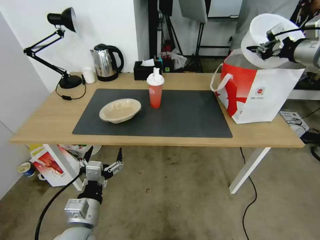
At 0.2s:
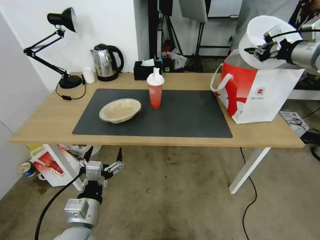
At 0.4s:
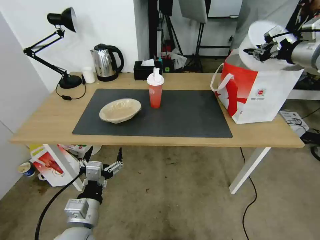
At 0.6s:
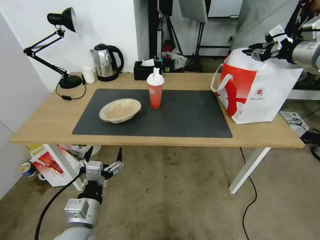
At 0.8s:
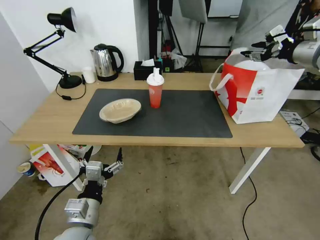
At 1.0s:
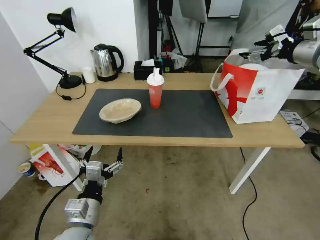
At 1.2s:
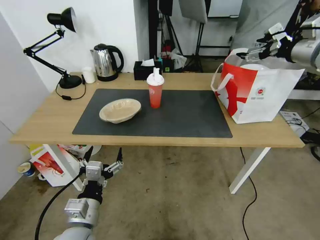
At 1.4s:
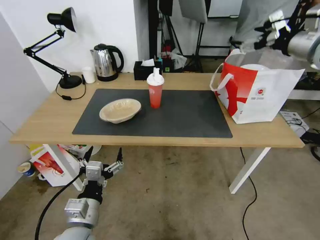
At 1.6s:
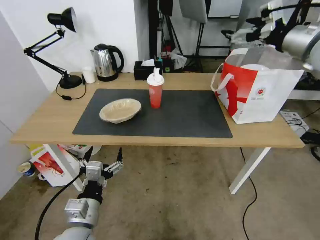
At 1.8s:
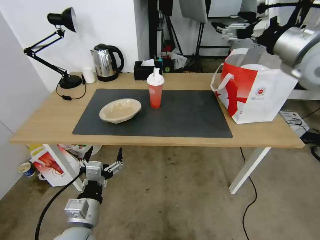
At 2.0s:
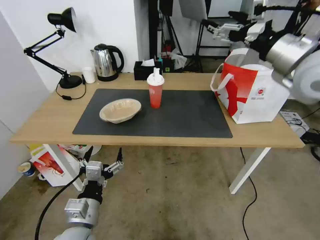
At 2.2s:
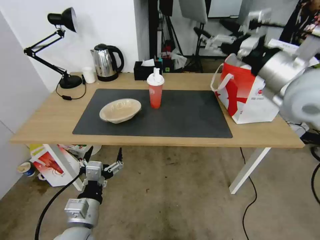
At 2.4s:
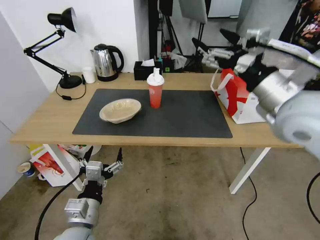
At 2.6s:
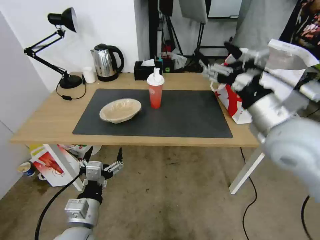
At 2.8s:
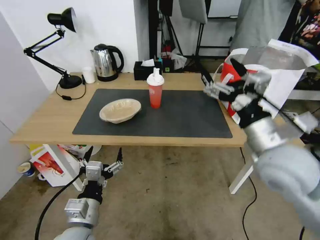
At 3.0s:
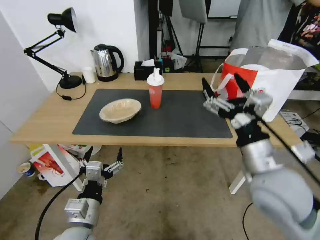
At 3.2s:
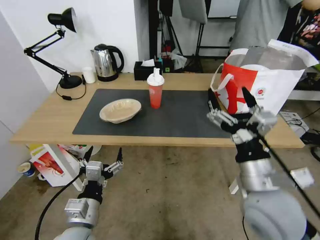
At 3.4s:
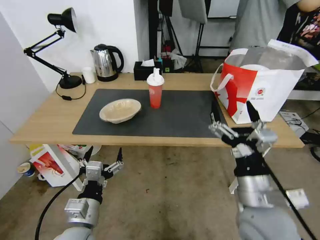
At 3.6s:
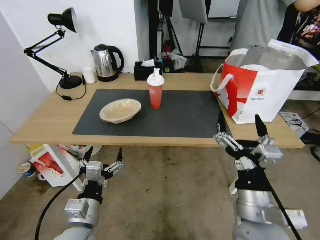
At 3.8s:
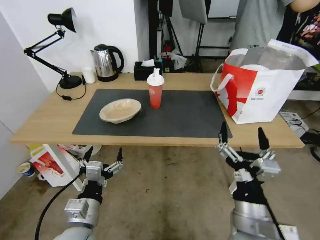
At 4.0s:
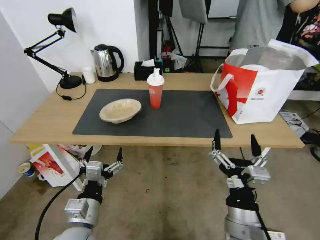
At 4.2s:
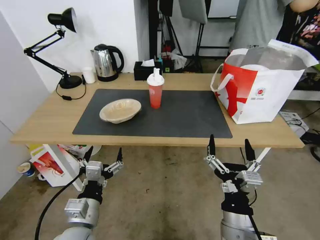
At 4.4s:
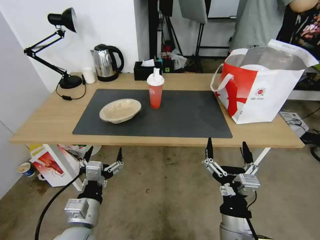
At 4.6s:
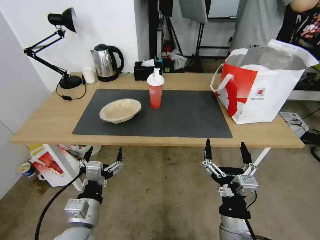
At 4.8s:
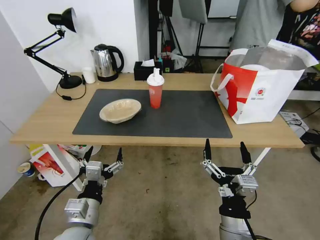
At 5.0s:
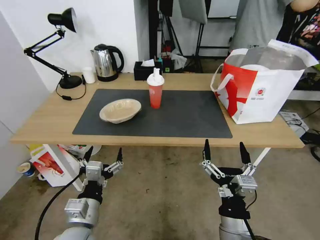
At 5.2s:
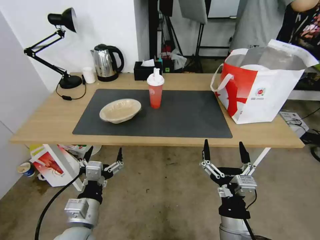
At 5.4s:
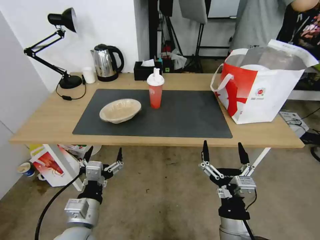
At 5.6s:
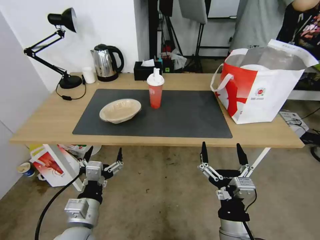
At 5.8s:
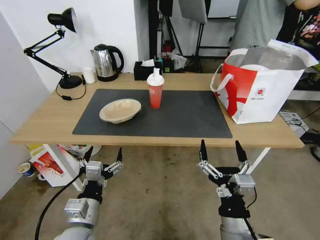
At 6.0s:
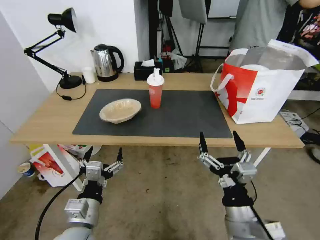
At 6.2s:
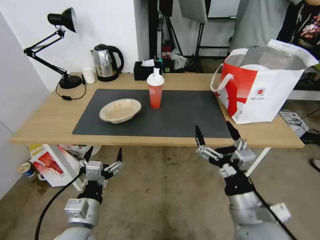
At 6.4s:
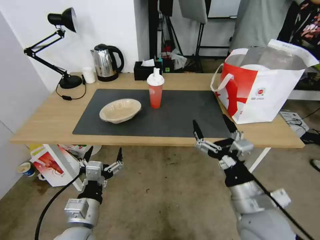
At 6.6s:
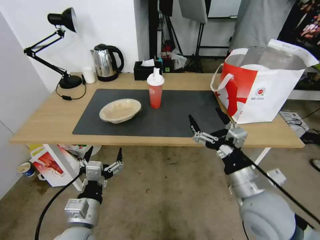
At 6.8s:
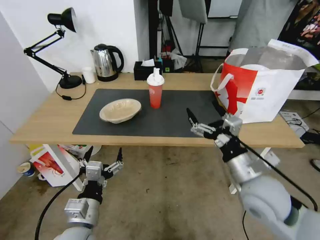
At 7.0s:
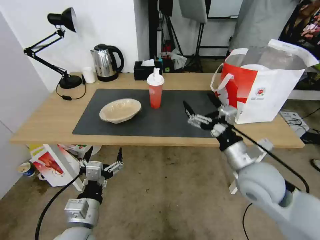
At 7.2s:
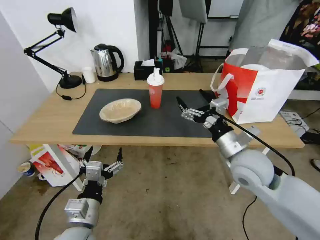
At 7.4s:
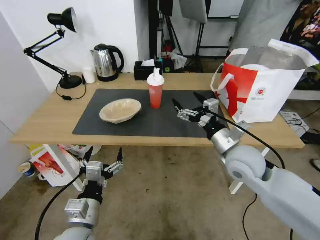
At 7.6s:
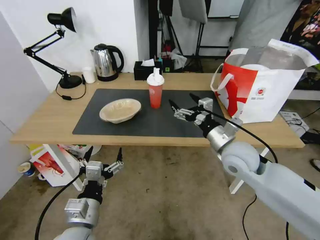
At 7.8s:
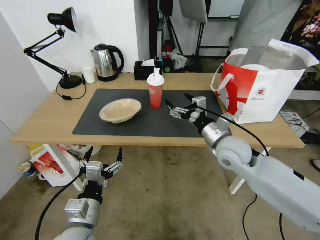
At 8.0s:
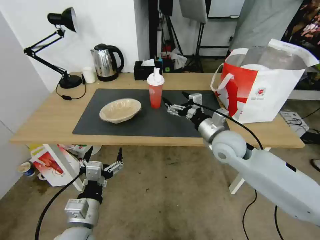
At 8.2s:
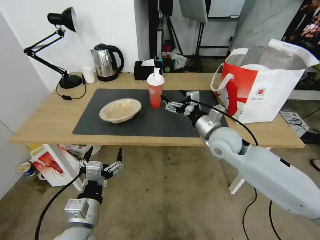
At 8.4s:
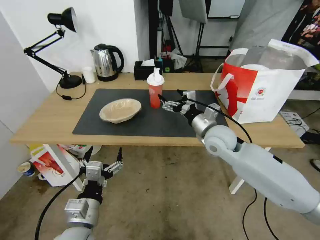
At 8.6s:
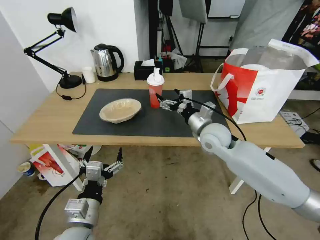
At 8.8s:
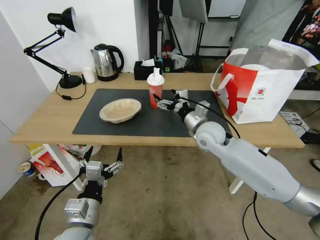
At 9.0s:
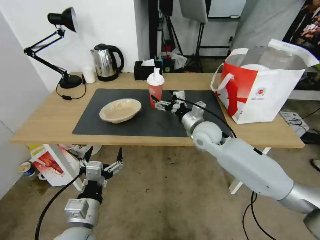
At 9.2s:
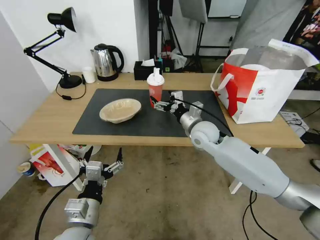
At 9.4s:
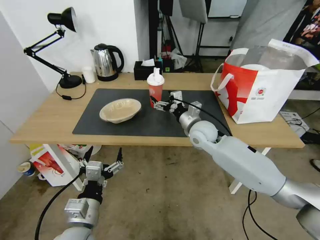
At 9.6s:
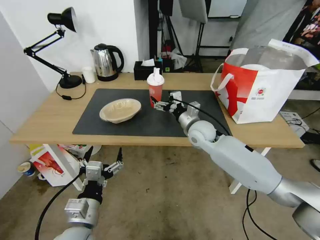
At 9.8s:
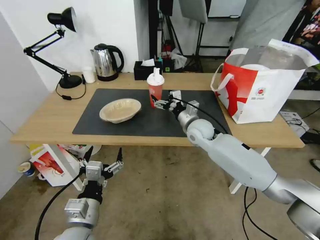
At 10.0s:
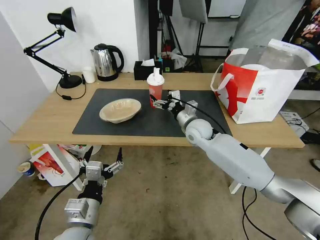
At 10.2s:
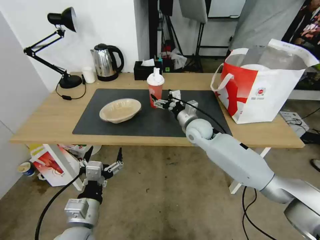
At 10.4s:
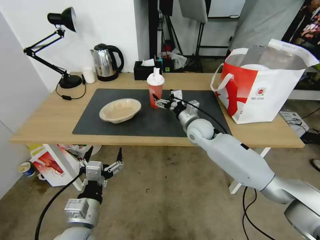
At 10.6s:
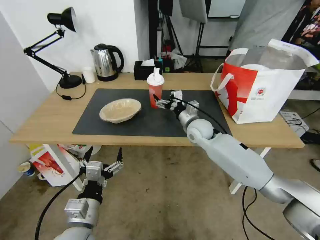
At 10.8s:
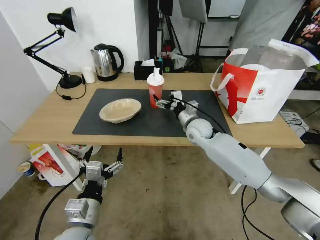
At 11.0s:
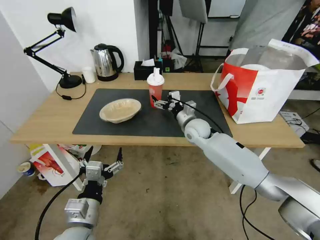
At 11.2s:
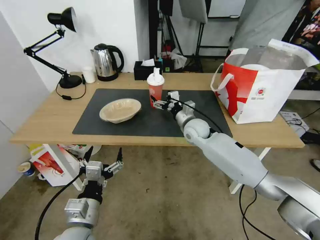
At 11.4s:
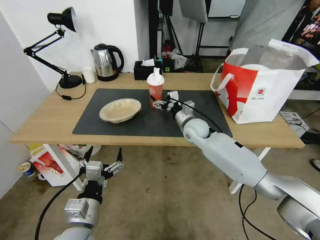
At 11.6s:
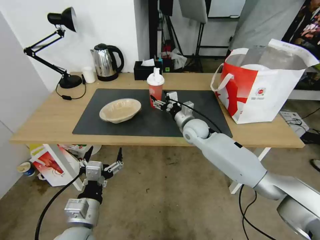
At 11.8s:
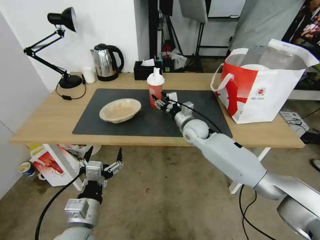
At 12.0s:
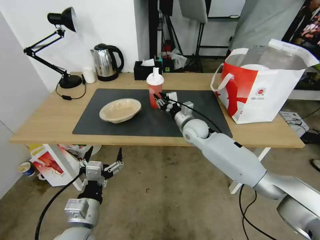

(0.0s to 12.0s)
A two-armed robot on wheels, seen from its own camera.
Task of the whole recording: Pick up the trash from the table and place it into the takeout bag.
0.0s - 1.6s: The right gripper opens.
1.6s - 3.0s: The right gripper shifts roughly 35 cm backward, to the left and downward.
3.0s - 4.4s: The right gripper moves downward, backward and to the left, about 20 cm.
4.4s - 6.0s: There are only small adjustments of the grippers.
6.0s - 7.6s: The right gripper shifts about 20 cm forward.
7.6s - 9.0s: The right gripper heads forward and to the left, covering about 10 cm.
9.0s - 10.4s: The right gripper shifts by some 5 cm.
10.4s - 12.0s: The right gripper closes up.

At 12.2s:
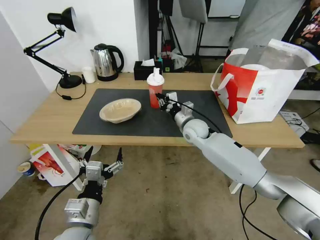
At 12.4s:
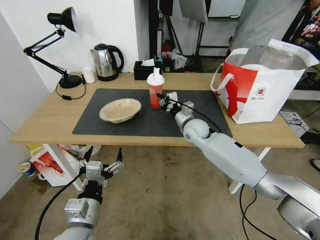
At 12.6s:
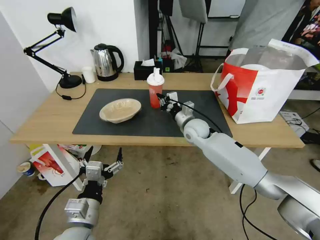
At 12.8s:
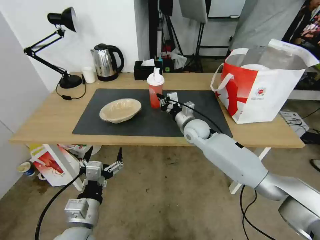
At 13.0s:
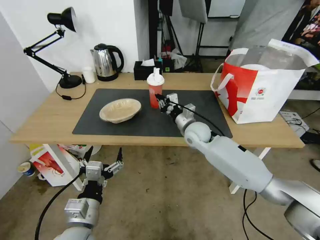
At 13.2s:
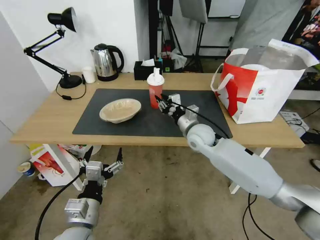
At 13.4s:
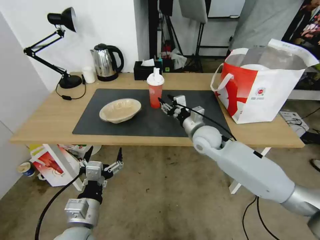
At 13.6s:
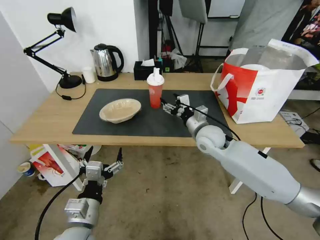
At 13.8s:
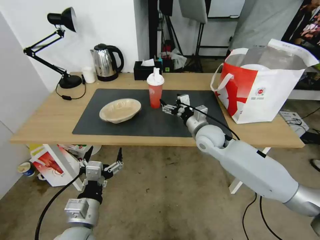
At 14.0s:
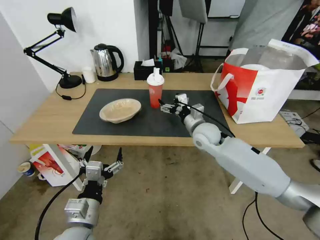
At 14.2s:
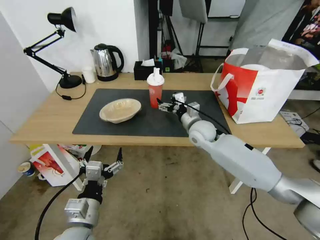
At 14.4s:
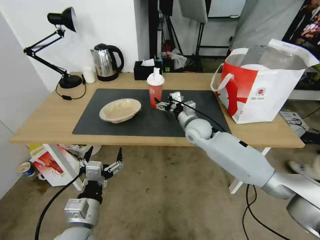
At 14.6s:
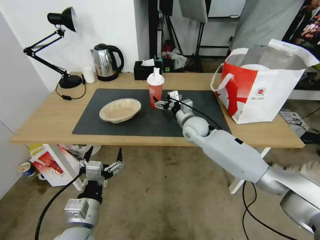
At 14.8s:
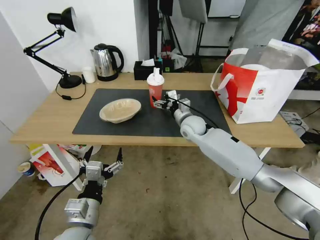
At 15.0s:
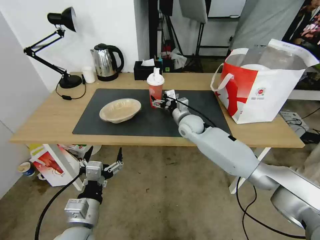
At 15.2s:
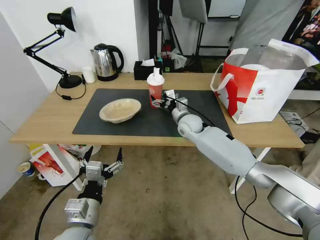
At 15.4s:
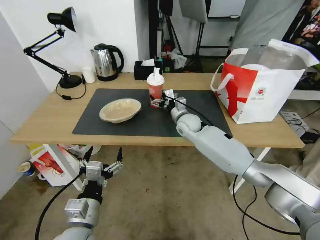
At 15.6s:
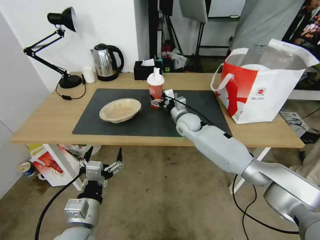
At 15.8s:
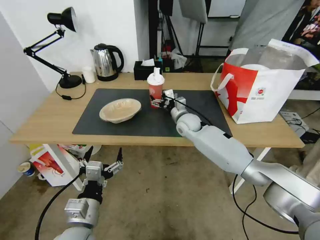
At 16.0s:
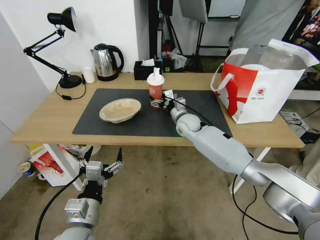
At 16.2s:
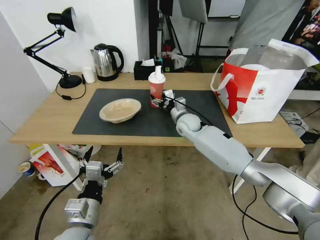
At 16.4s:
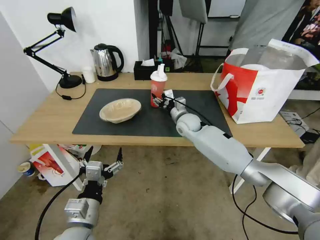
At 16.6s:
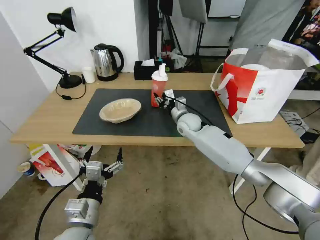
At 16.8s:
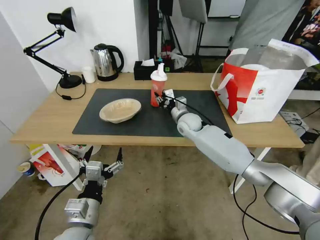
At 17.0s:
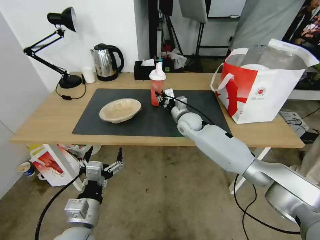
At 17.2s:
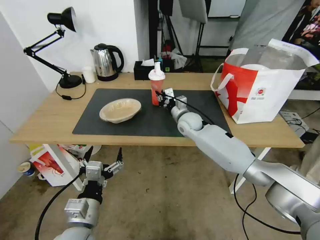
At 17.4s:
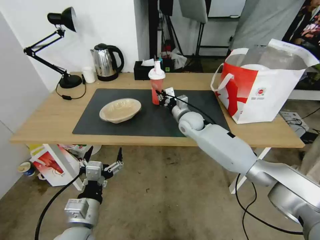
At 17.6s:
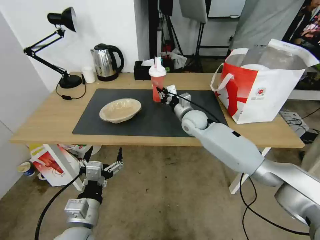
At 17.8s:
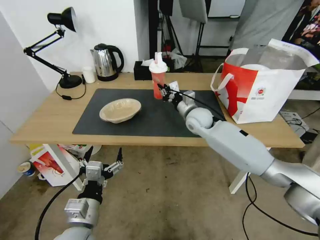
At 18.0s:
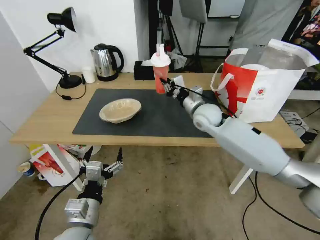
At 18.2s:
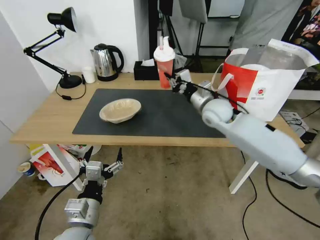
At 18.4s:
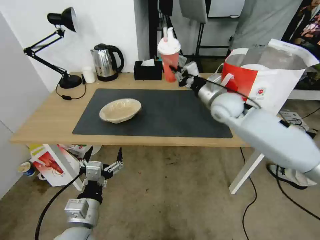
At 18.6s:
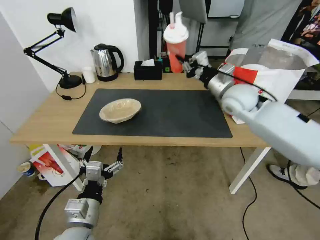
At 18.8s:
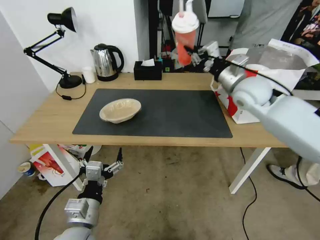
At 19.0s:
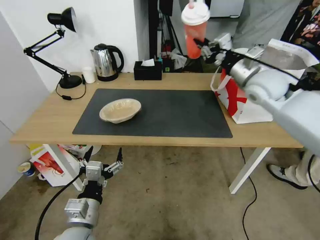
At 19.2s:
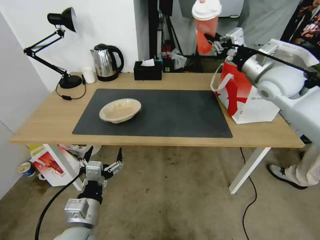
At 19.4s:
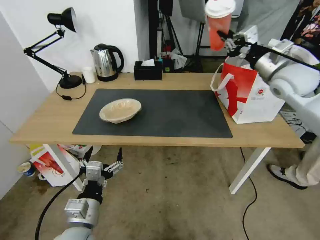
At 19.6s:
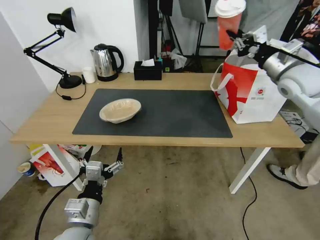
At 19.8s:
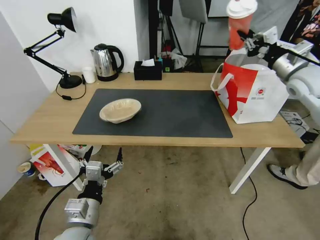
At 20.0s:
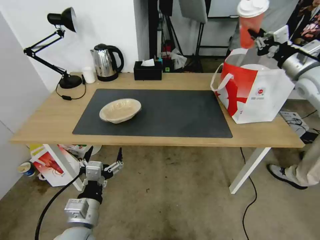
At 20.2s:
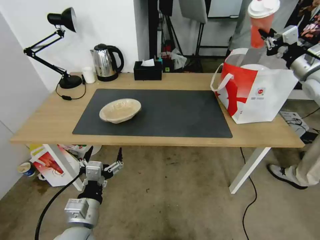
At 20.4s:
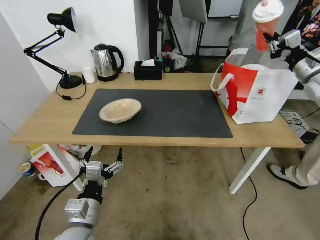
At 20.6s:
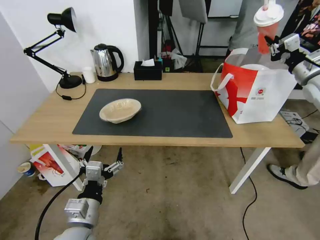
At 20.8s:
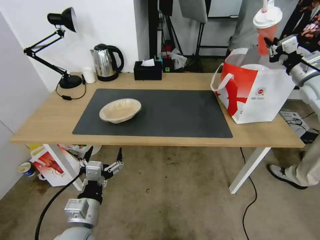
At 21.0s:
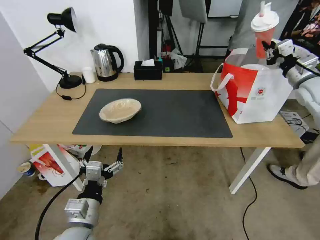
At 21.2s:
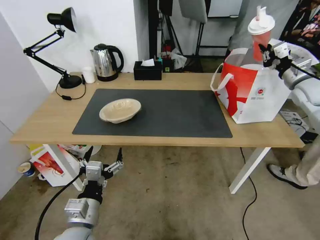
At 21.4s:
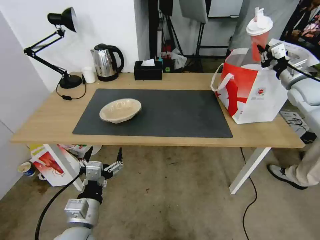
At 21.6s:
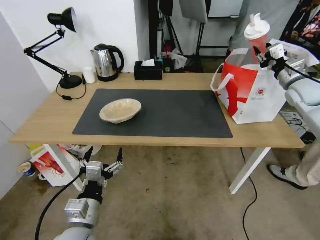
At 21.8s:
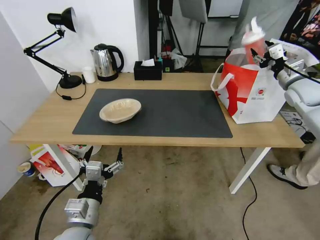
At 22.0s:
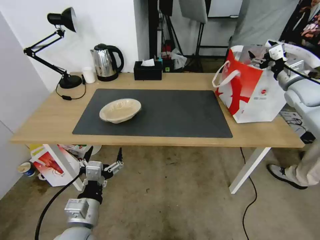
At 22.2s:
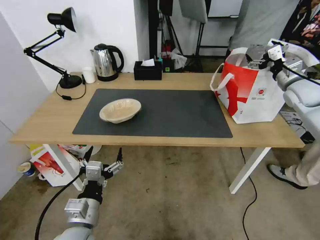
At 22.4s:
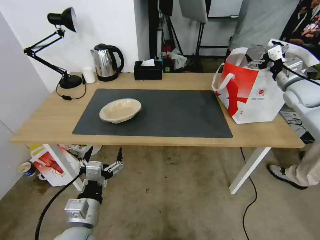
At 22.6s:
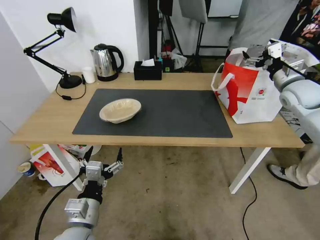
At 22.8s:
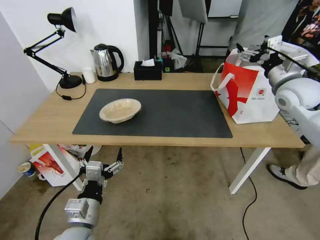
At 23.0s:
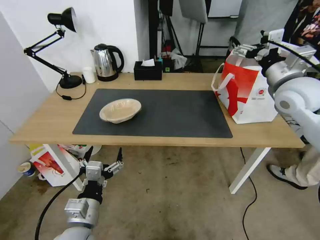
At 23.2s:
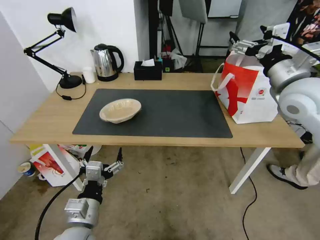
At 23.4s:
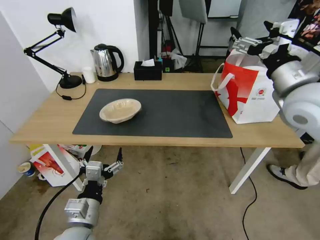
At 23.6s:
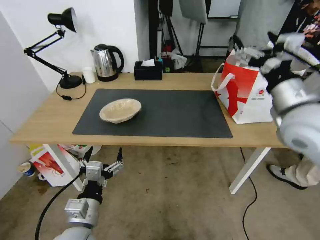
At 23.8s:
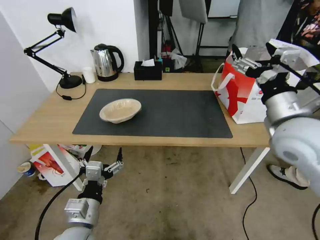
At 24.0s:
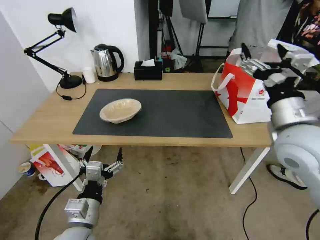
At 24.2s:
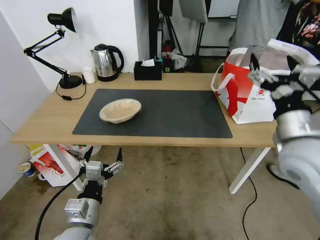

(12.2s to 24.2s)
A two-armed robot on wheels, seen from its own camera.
Task of the whole recording: Pick up the trash from the table and place it into the takeout bag.
12.2s - 13.8s: The right gripper shifts approximately 5 cm backward, and opens its fingers.
13.8s - 15.2s: The right gripper shifts about 10 cm forward and to the left.
15.2s - 16.6s: The right gripper closes.
16.6s - 18.2s: The right gripper travels upward and to the right by approximately 15 cm, and closes up.
18.2s - 19.8s: The right gripper heads to the right and upward, covering some 25 cm.
19.8s - 21.2s: The right gripper is displaced to the right and downward by roughly 10 cm.
21.2s - 22.6s: The right gripper opens up.
22.6s - 24.2s: The right gripper moves backward and to the left, about 25 cm.
